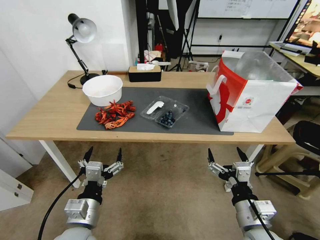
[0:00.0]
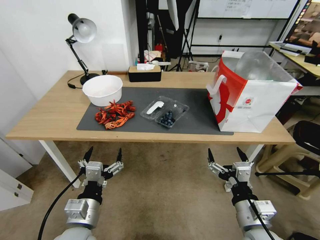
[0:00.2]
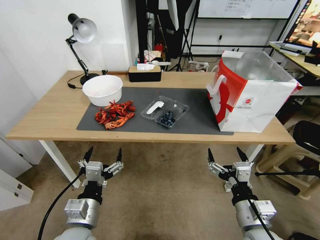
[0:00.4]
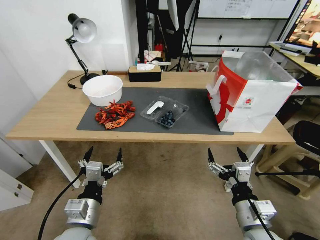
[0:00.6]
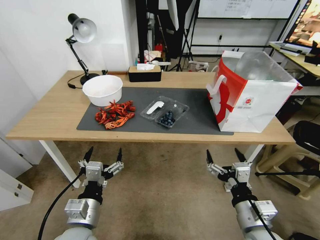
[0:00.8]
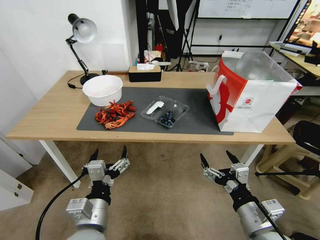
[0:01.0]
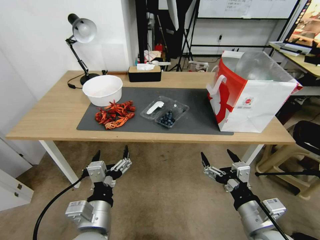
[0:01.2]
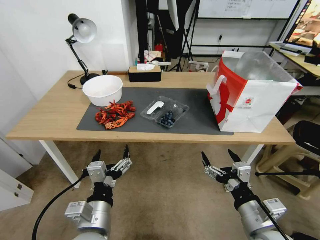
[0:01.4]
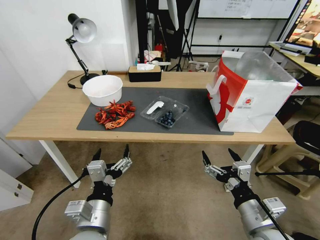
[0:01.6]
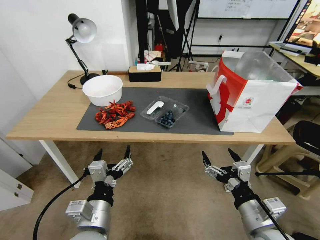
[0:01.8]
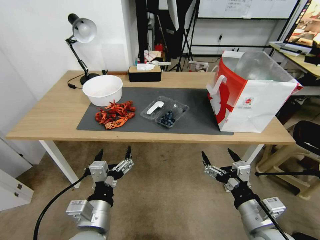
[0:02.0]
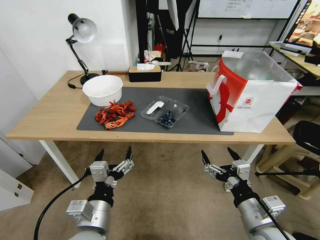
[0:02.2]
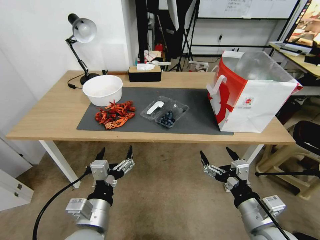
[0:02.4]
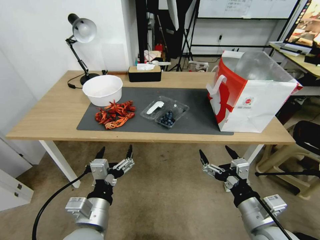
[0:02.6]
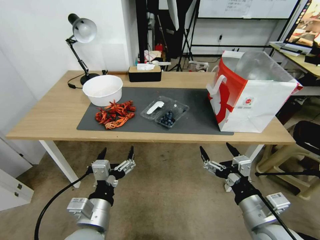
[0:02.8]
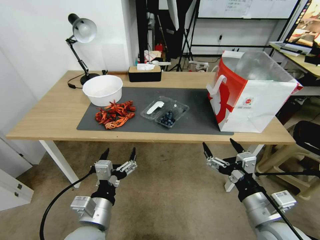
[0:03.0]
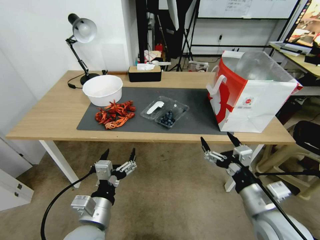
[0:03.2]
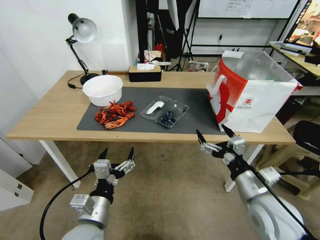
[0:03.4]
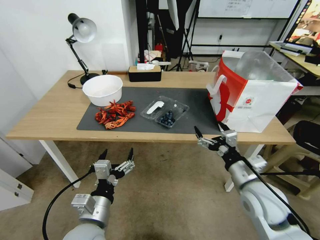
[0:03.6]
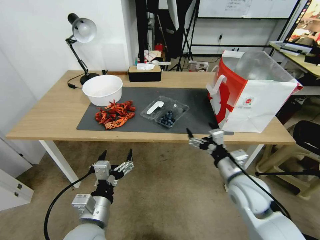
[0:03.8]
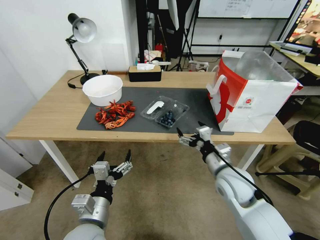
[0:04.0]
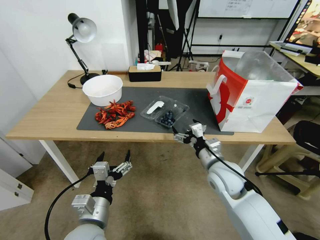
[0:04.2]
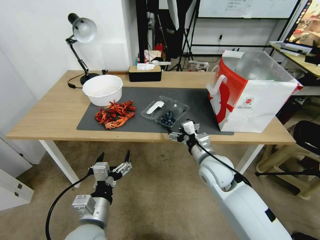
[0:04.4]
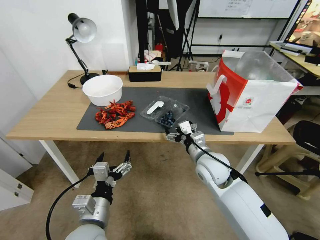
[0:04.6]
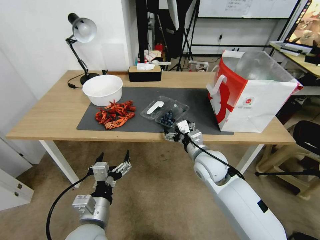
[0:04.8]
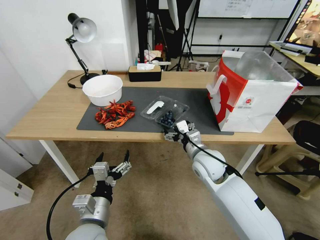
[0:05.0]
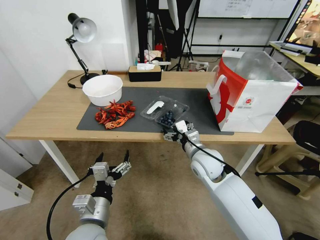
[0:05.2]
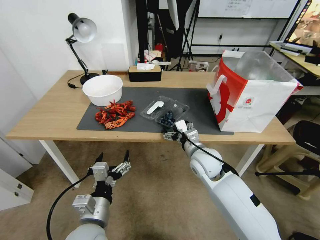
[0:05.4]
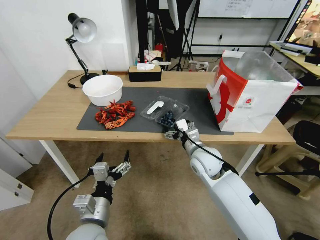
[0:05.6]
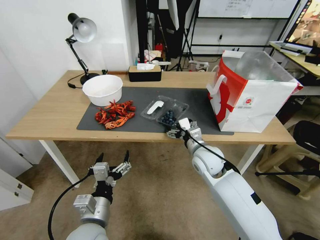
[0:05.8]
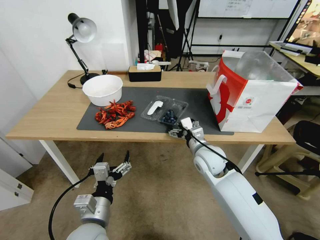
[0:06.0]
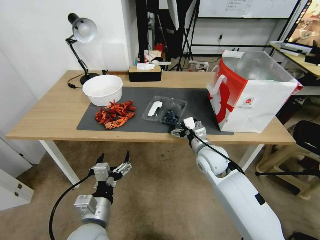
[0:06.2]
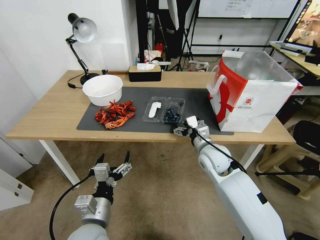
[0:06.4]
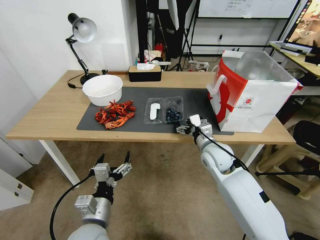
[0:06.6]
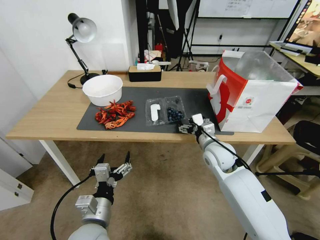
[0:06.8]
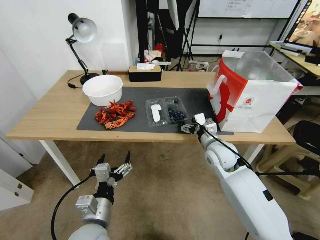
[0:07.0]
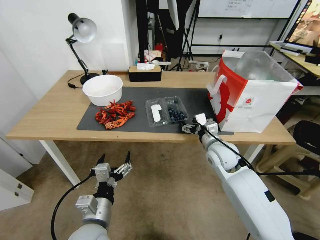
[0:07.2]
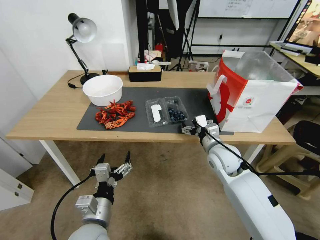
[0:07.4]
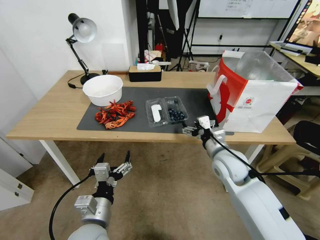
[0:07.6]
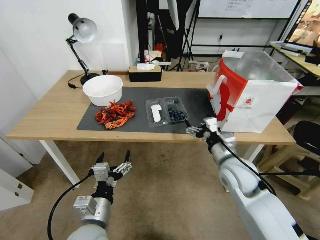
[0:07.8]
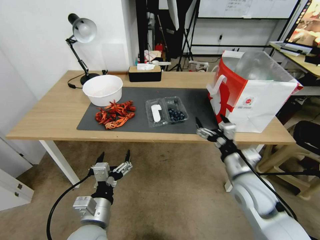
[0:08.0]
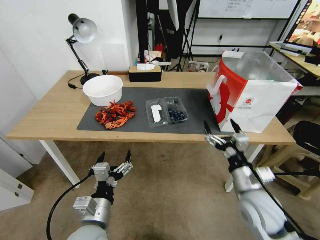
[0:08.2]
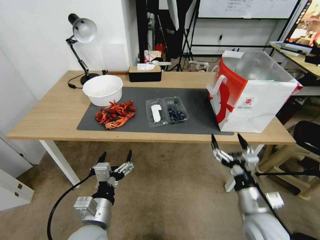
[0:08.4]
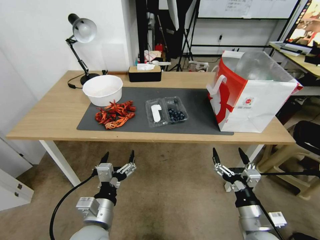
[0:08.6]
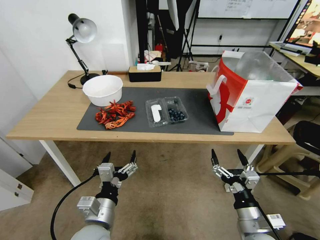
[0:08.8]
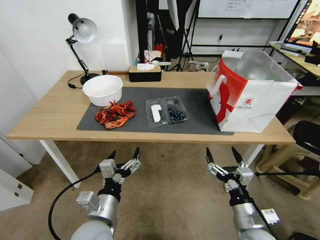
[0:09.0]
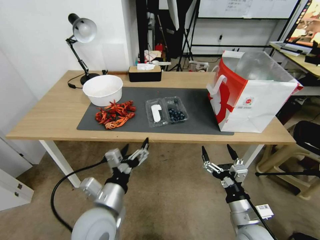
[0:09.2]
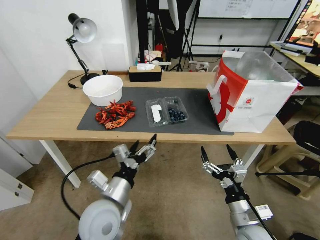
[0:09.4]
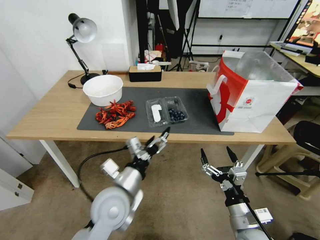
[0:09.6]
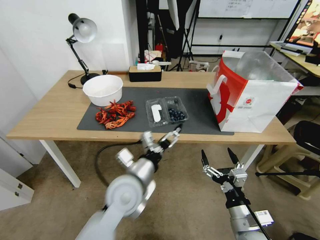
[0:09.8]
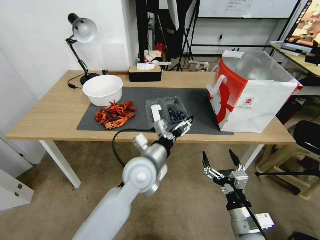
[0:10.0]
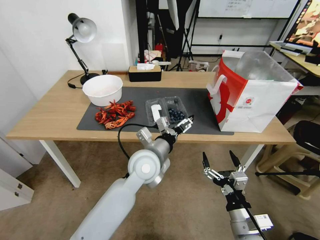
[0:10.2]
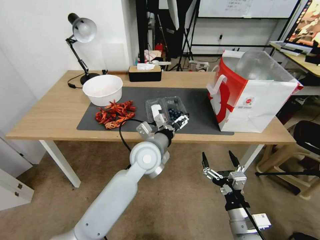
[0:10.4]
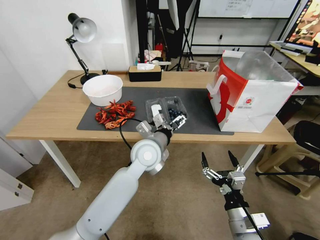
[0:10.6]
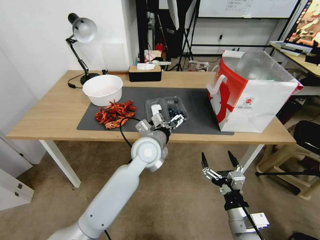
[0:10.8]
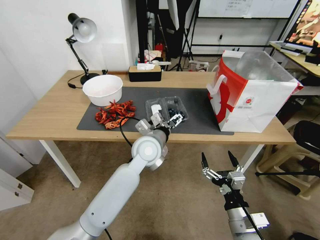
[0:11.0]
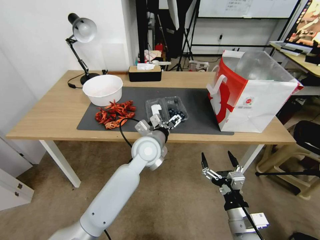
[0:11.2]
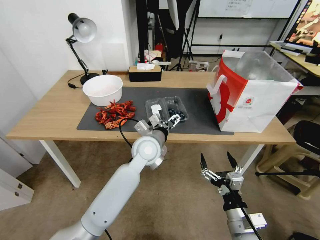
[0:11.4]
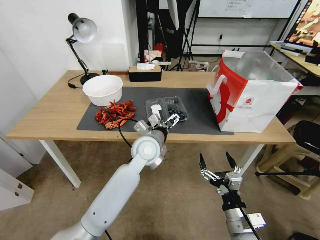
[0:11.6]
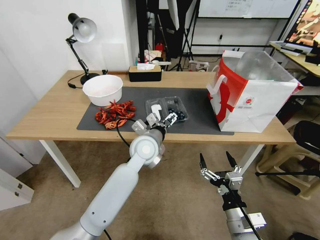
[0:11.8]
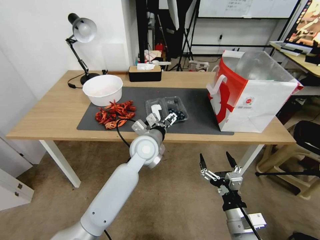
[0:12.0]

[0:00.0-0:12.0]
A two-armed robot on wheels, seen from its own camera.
Task of the whole recording: Close the takeout container lid, then place the container into the takeout bag.
0:01.6 to 0:03.0: The grippers stay close to where they were, moving slightly.
0:03.0 to 0:04.4: The right gripper moves forward and to the left, about 20 cm.
0:04.4 to 0:06.0: The grippers make only small movements.
0:06.0 to 0:07.6: The right gripper moves approximately 5 cm.
0:07.6 to 0:09.0: The right gripper travels backward and downward by approximately 20 cm.
0:09.0 to 0:10.4: The left gripper is displaced forward and to the right by approximately 20 cm.
0:10.4 to 0:12.0: The grippers stay close to where they were, moving slightly.

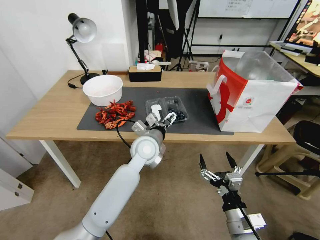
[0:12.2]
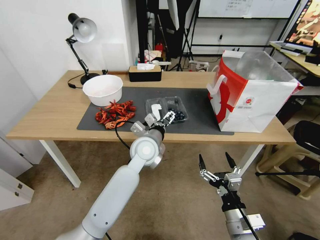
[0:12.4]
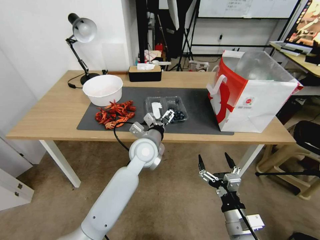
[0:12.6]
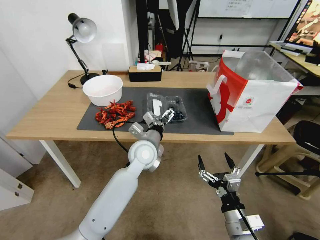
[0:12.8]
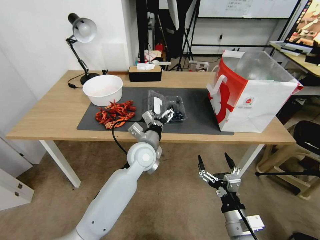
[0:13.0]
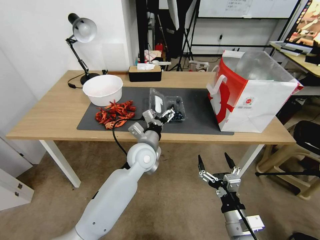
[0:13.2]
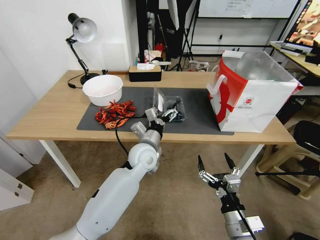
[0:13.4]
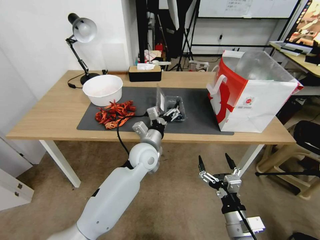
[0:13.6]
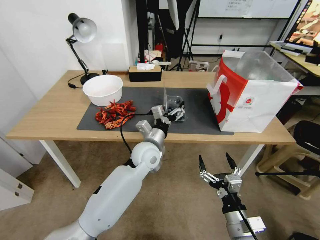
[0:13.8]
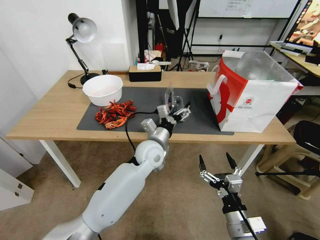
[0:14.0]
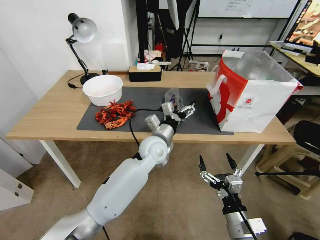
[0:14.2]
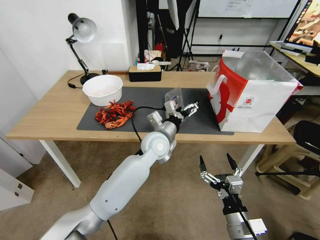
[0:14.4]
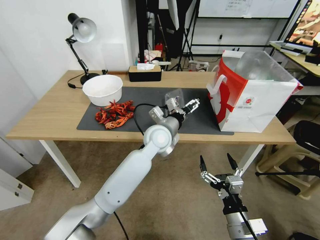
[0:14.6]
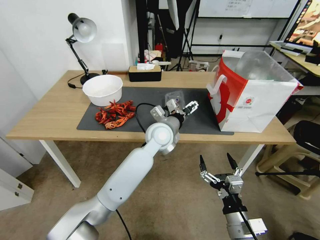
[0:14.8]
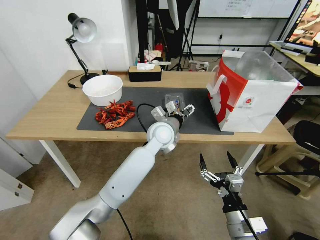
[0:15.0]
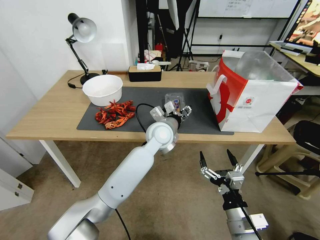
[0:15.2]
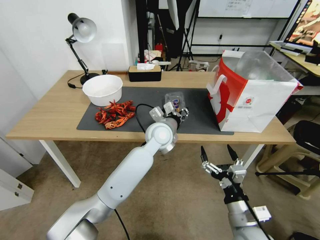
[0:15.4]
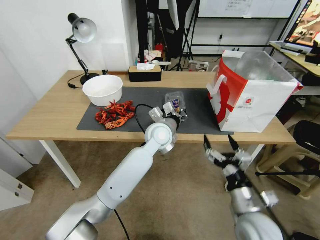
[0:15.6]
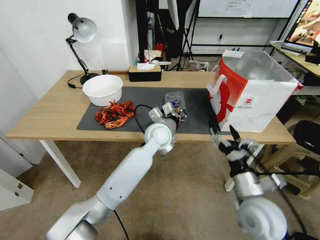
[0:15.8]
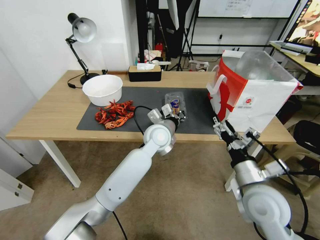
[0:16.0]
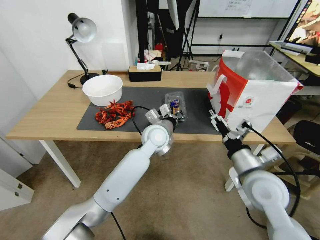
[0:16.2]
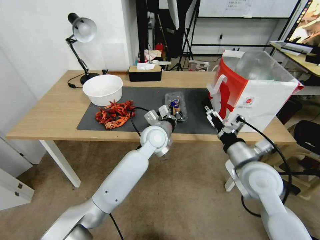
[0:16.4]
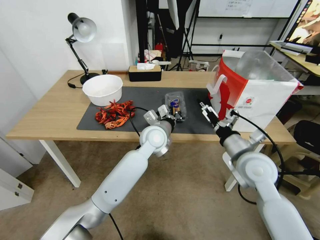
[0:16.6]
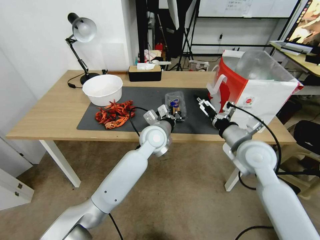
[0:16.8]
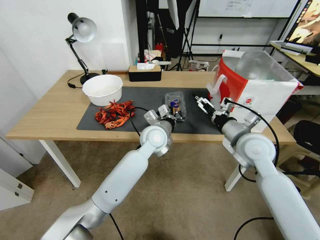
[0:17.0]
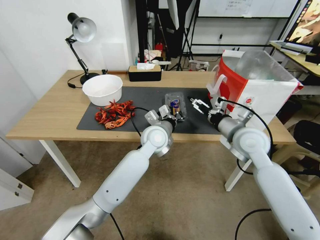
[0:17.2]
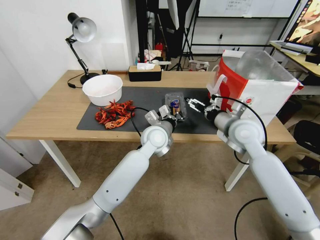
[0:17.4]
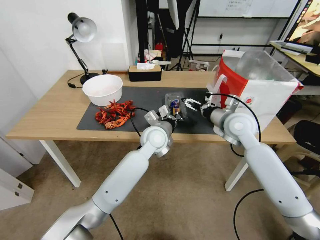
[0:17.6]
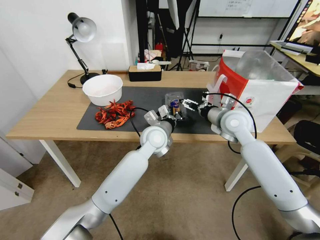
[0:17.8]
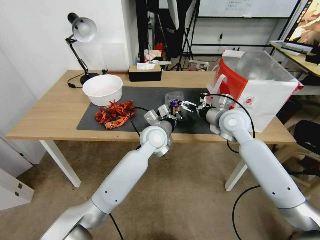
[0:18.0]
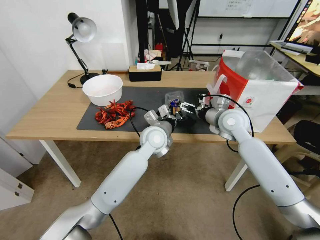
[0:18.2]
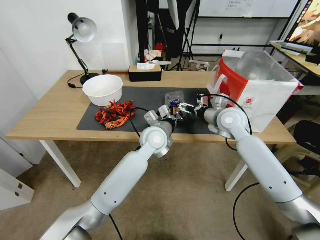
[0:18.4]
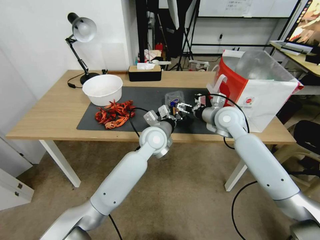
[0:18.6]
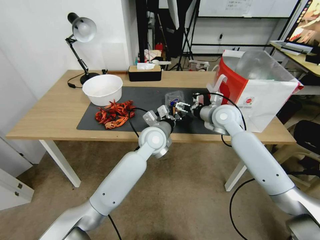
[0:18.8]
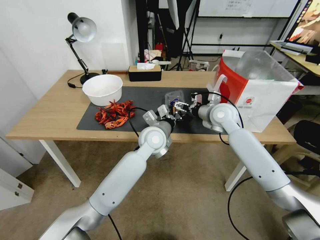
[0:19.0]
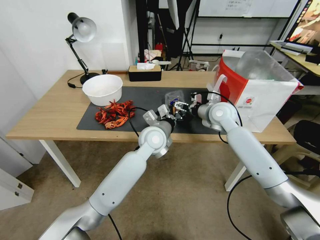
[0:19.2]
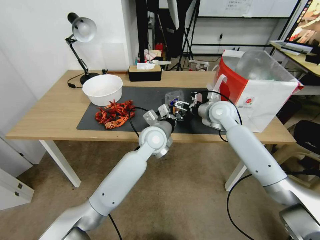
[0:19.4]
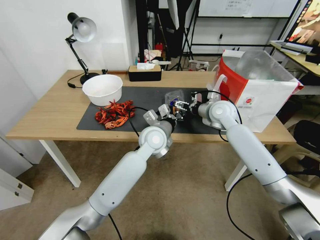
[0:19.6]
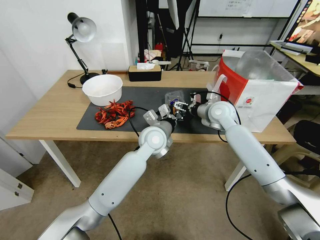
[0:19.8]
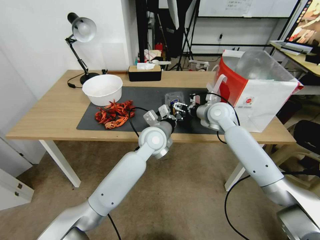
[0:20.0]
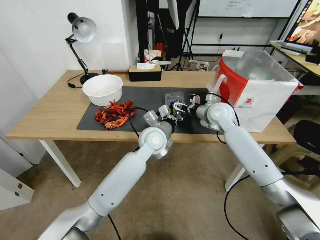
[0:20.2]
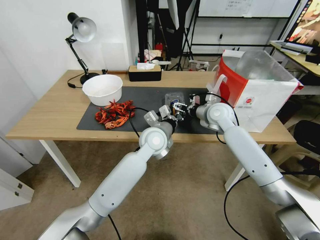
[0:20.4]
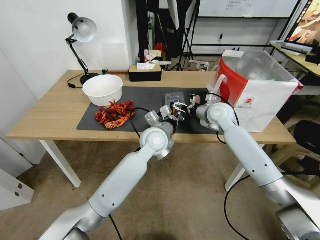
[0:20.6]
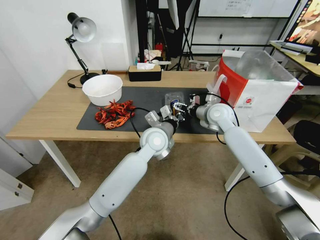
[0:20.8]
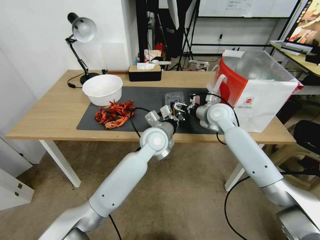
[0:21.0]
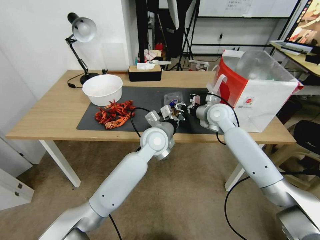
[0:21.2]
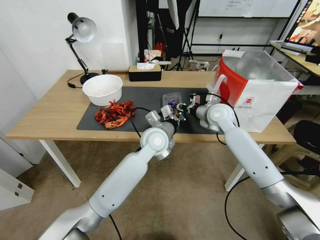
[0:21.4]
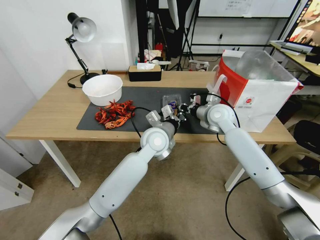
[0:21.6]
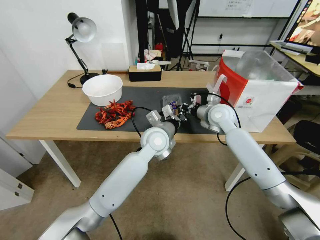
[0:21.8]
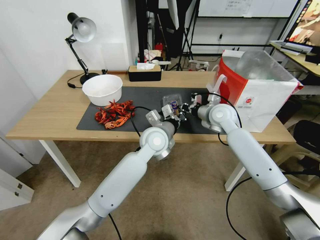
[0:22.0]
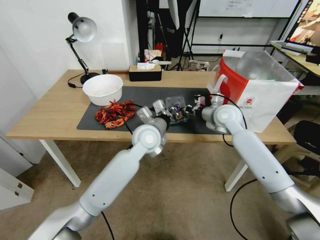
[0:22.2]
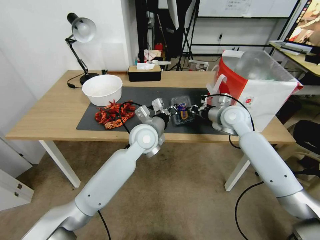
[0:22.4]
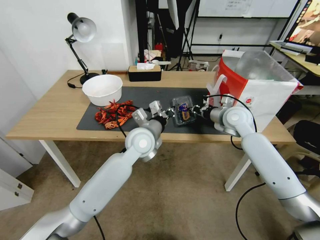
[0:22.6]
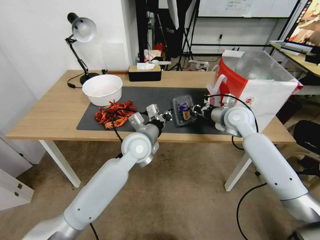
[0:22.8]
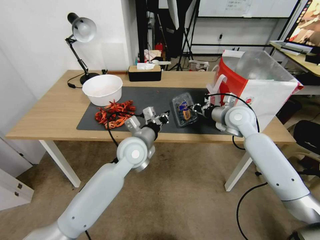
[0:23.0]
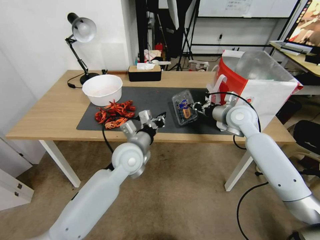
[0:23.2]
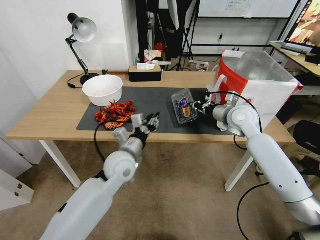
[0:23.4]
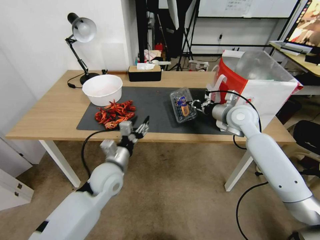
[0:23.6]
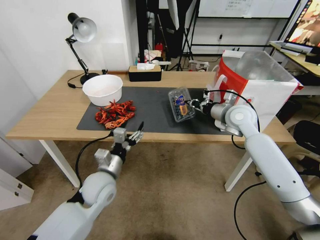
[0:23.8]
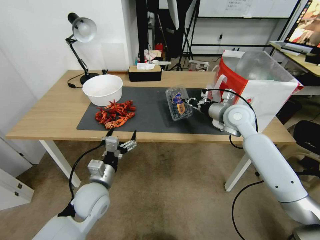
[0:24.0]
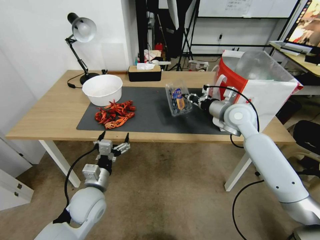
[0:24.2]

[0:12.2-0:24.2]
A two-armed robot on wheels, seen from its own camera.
Task of the whole recording: Close the takeout container lid, then place the container into the takeout bag.
0:13.8 to 0:15.2: The left gripper heads forward, covering some 5 cm, and closes.
0:15.2 to 0:16.6: The left gripper closes its fingers; the right gripper shifts roughly 20 cm forward and upward.
0:16.6 to 0:18.2: The right gripper goes some 15 cm forward.
0:18.2 to 0:19.8: The right gripper travels forward by roughly 5 cm.
0:19.8 to 0:21.2: The right gripper closes up.
0:21.2 to 0:22.6: The right gripper changes place by some 5 cm, and closes up.
0:22.6 to 0:24.2: The left gripper moves to the left, backward and downward, approximately 25 cm, and opens.
